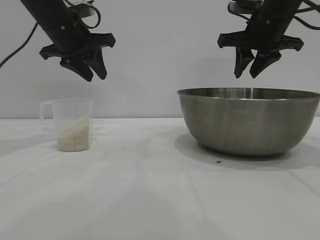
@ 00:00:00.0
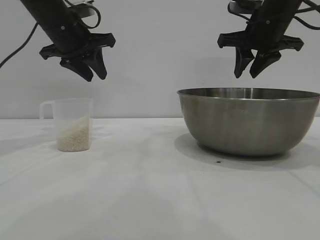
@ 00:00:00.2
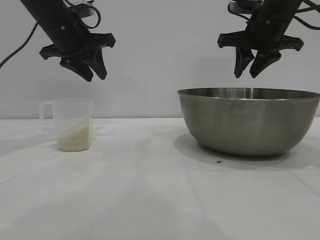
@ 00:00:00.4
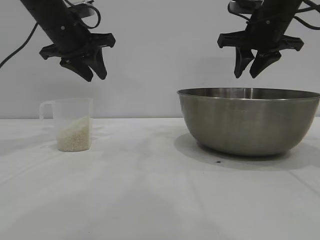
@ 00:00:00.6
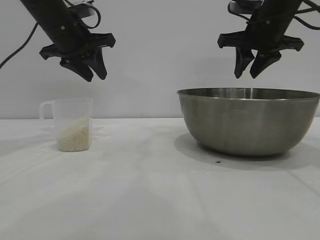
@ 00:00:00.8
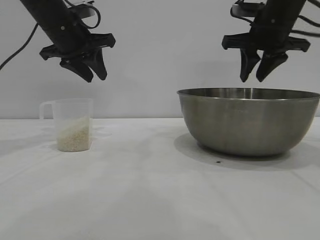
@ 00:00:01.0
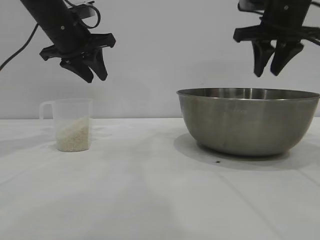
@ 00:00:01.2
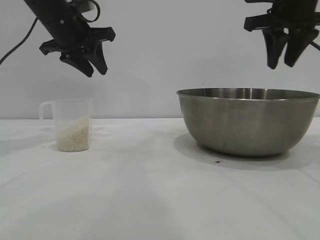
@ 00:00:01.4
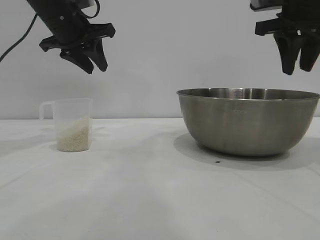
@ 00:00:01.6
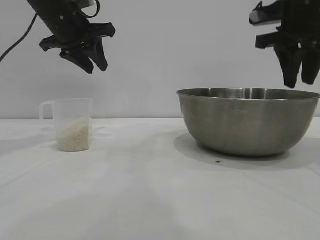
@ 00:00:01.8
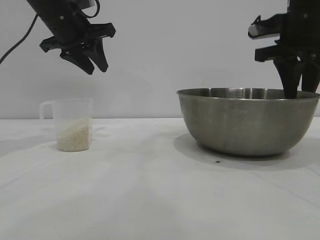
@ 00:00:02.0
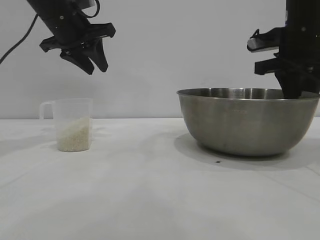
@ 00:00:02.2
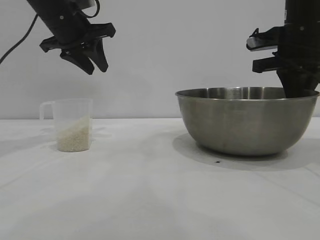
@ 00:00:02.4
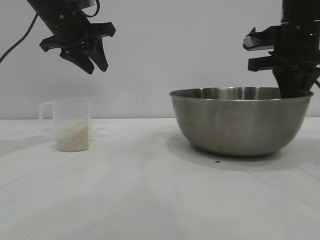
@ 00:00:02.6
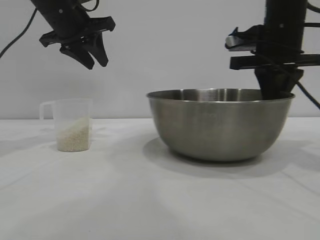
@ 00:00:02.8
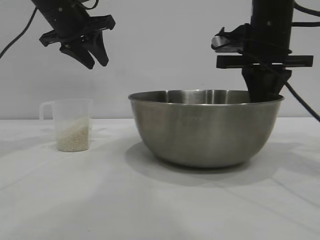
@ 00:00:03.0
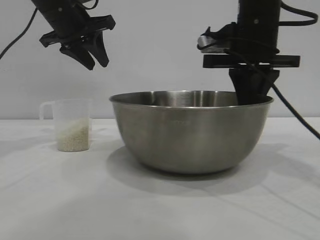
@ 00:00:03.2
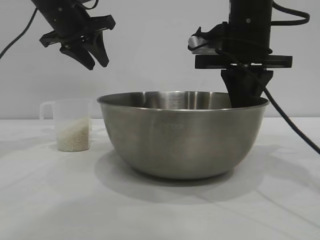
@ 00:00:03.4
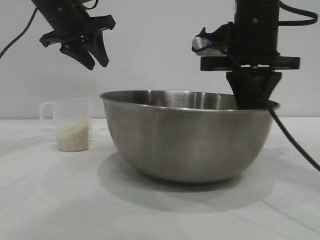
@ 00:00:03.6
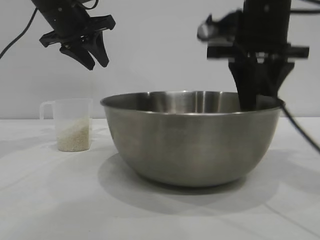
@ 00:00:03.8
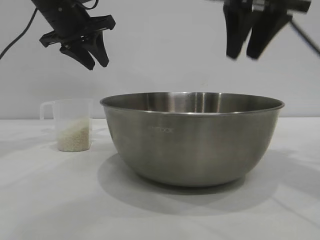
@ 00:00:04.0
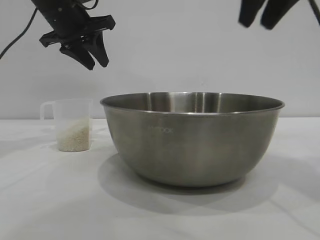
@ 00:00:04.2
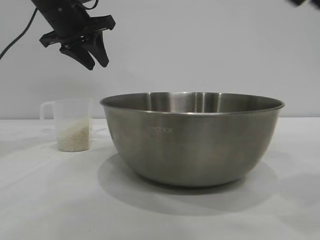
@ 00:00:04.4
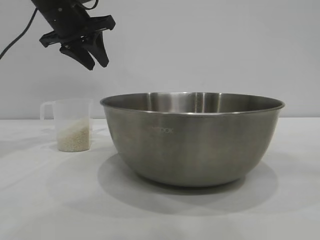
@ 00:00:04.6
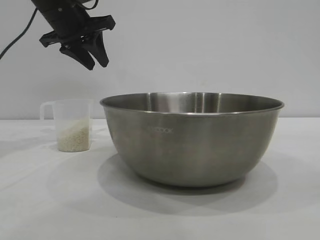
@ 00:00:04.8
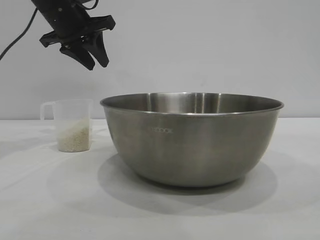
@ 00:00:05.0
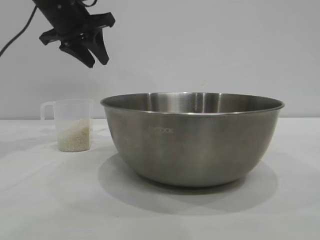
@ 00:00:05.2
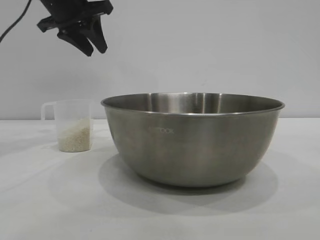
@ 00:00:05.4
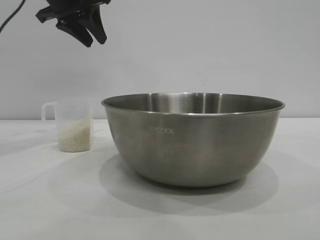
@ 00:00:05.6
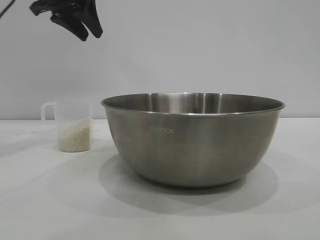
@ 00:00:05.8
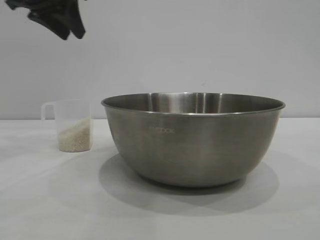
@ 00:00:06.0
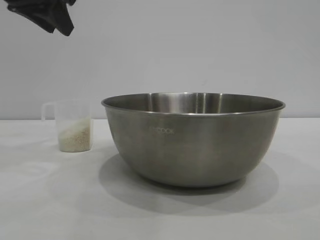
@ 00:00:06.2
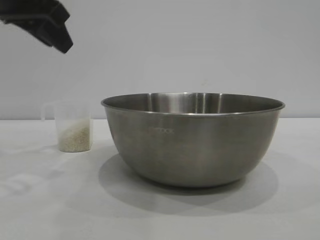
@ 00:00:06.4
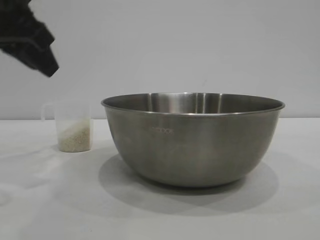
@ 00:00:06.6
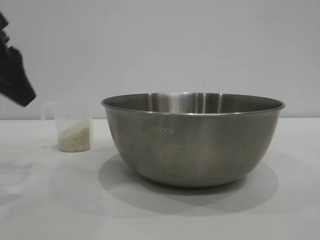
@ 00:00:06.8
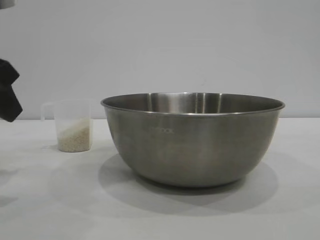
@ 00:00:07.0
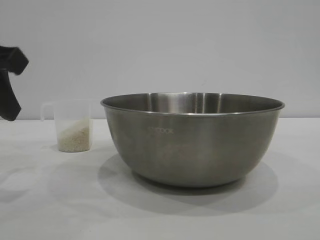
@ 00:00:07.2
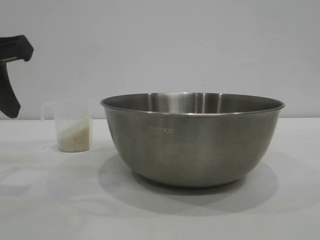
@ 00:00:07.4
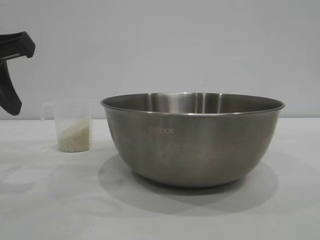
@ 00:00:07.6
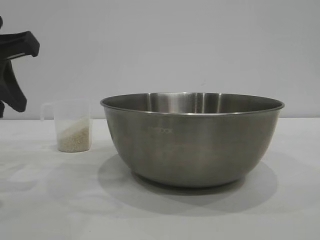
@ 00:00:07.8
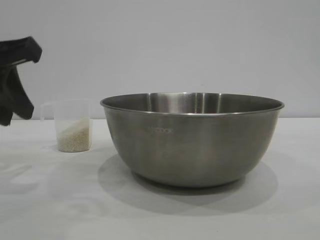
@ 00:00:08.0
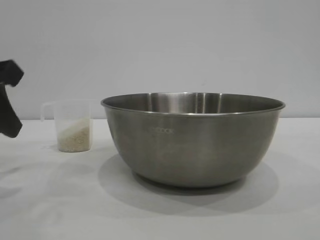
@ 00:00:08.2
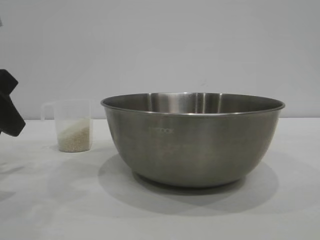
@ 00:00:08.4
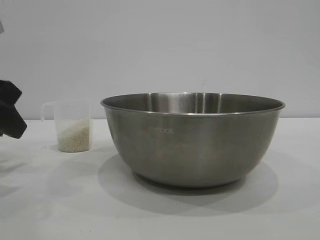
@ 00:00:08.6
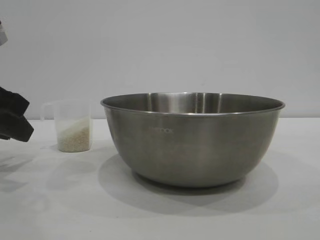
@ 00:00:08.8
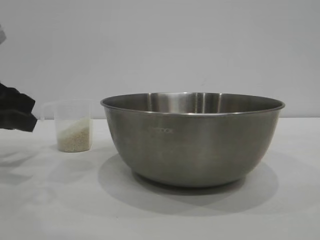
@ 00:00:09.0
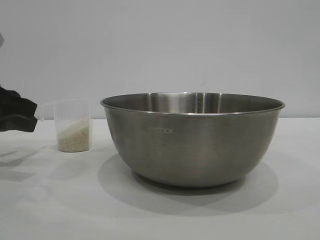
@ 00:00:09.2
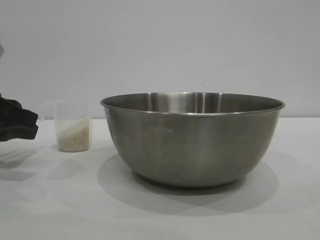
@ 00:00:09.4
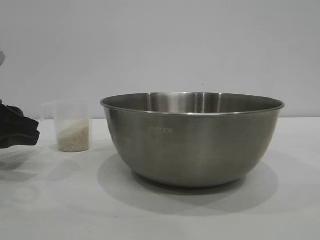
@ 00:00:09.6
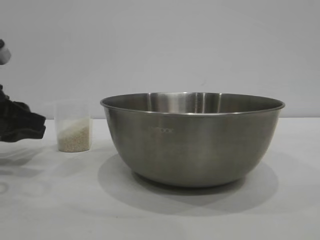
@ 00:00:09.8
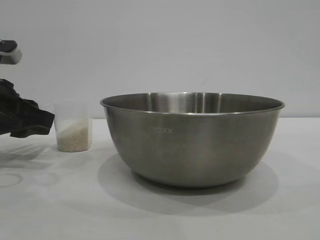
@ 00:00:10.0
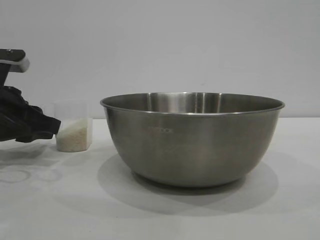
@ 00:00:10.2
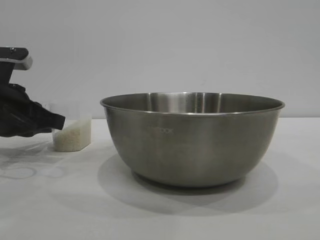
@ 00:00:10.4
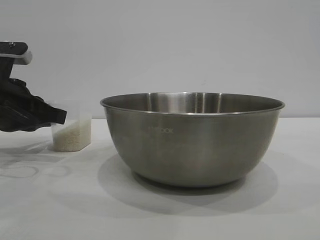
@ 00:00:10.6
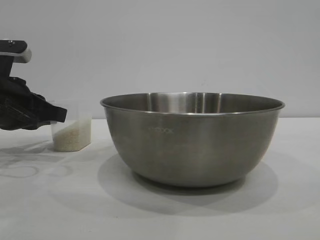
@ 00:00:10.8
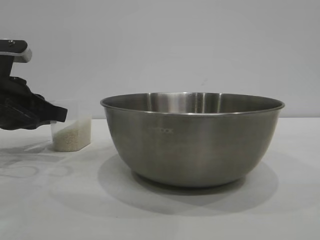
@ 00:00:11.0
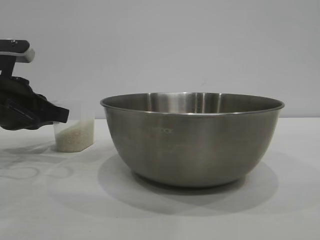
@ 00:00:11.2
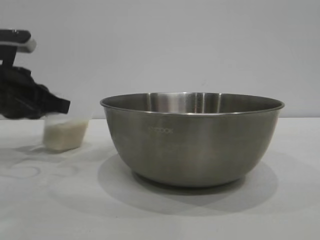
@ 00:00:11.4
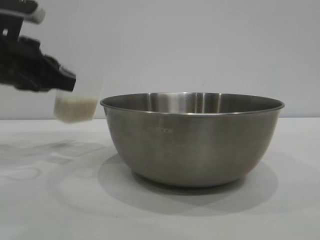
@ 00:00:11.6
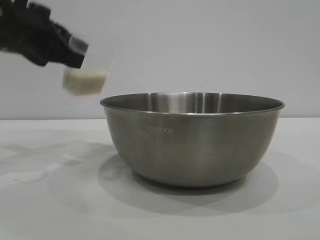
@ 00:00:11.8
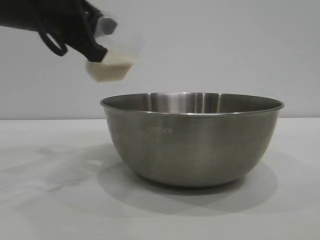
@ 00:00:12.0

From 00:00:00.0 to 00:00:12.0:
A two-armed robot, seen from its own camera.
Task of the whole recording: the right gripper grasp the rice container and place it in the center of the table, the left gripper grasp the rice scoop and pour the rice into the rice container.
Step, from 00:00:00.0 to 00:00:03.8: Move the bowl to the center of view with the right gripper.
Step, from 00:00:04.0 to 00:00:11.4: Pick up the cup with rice in it with the left gripper.

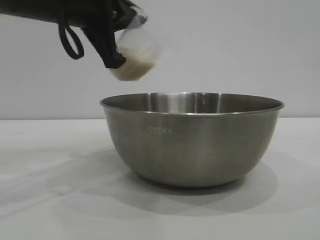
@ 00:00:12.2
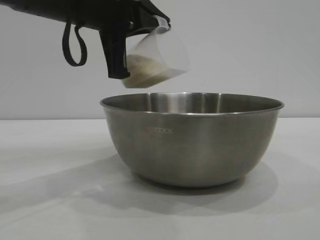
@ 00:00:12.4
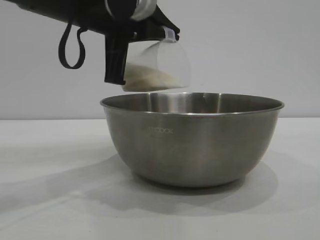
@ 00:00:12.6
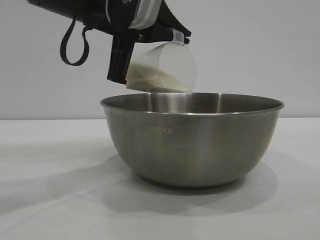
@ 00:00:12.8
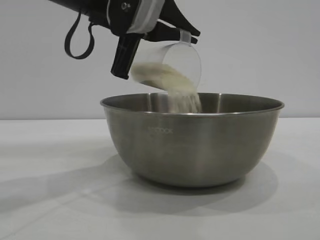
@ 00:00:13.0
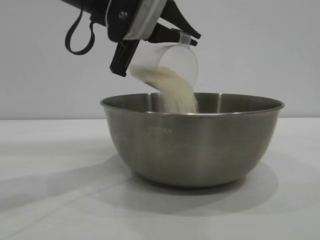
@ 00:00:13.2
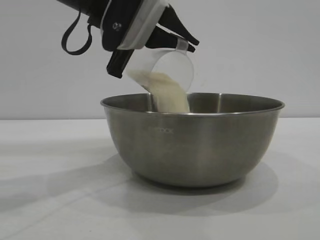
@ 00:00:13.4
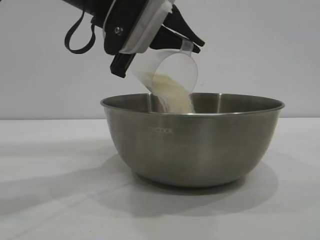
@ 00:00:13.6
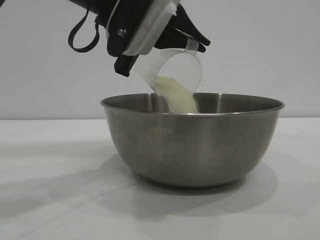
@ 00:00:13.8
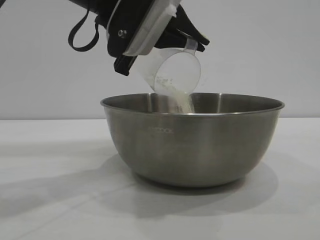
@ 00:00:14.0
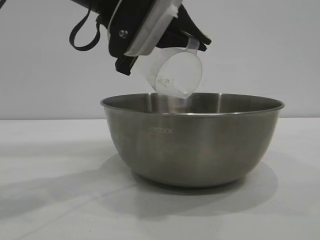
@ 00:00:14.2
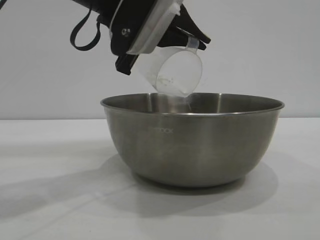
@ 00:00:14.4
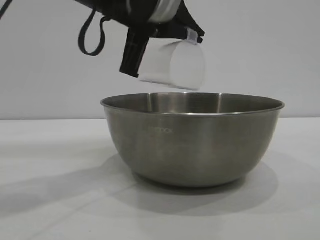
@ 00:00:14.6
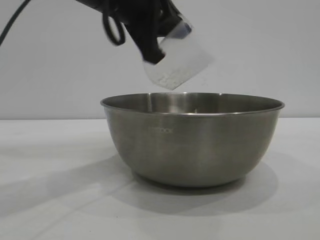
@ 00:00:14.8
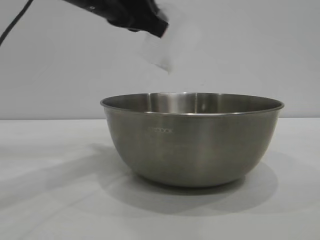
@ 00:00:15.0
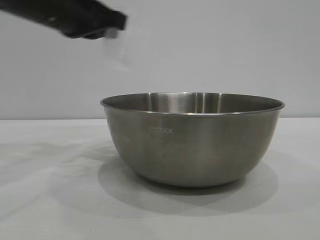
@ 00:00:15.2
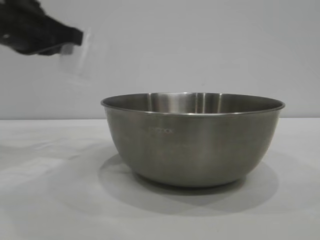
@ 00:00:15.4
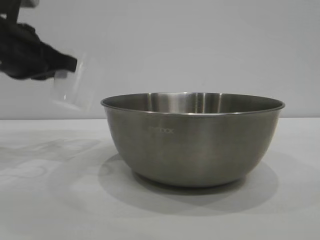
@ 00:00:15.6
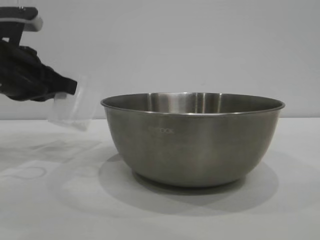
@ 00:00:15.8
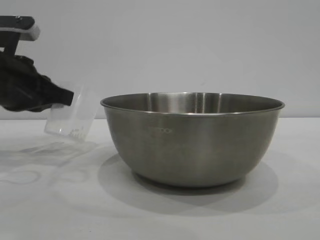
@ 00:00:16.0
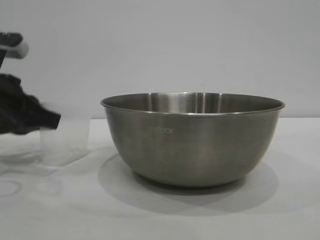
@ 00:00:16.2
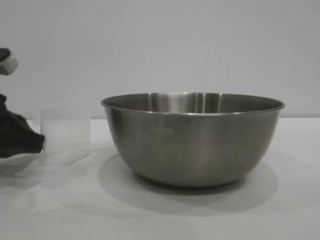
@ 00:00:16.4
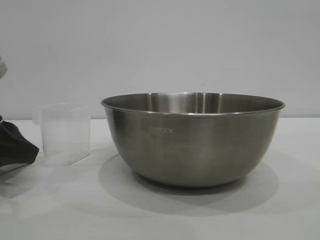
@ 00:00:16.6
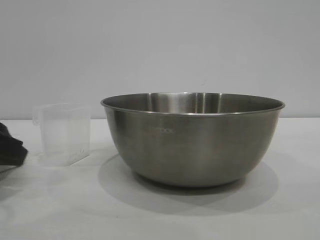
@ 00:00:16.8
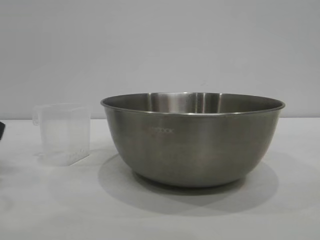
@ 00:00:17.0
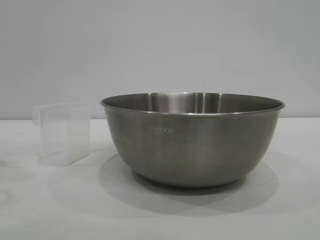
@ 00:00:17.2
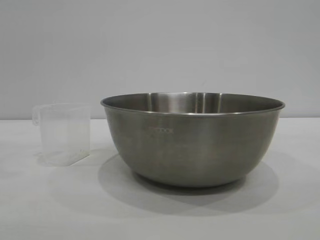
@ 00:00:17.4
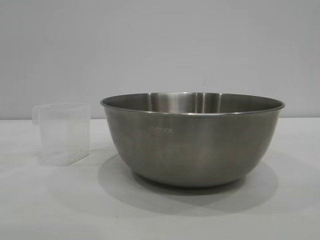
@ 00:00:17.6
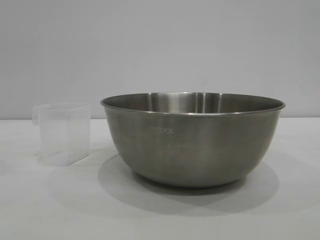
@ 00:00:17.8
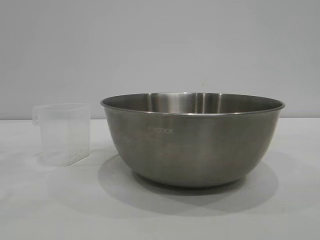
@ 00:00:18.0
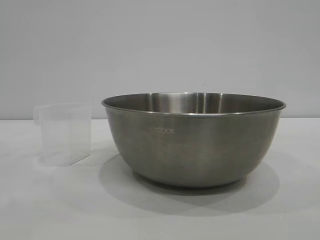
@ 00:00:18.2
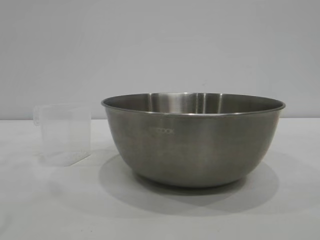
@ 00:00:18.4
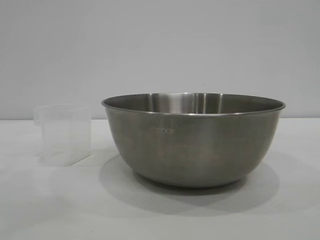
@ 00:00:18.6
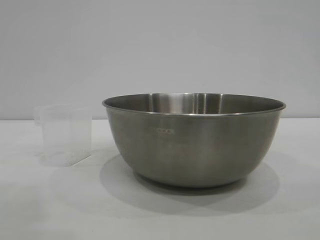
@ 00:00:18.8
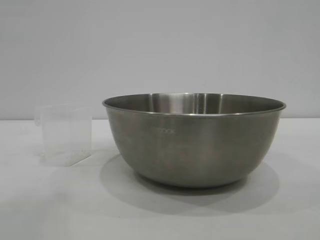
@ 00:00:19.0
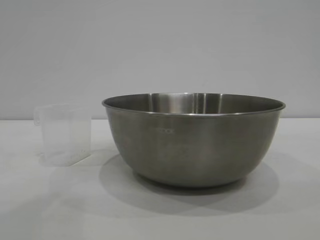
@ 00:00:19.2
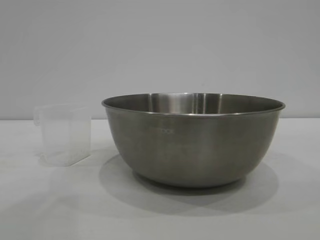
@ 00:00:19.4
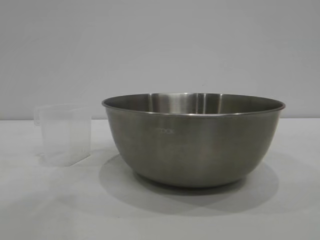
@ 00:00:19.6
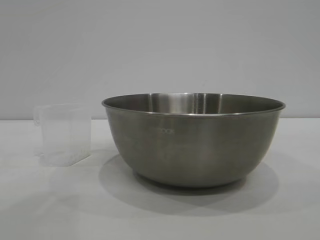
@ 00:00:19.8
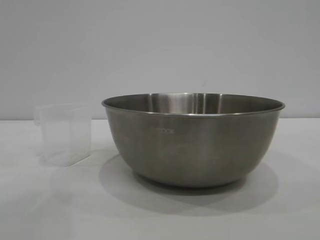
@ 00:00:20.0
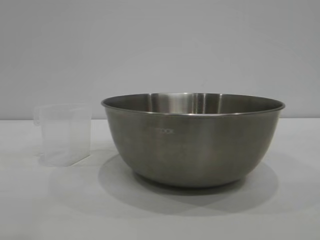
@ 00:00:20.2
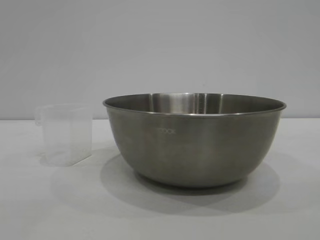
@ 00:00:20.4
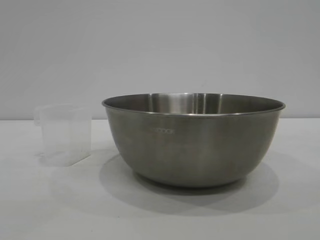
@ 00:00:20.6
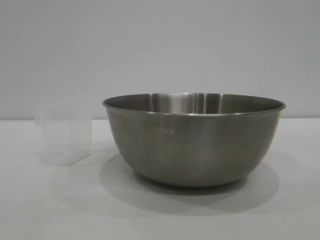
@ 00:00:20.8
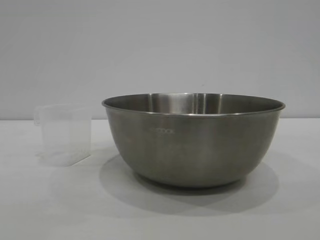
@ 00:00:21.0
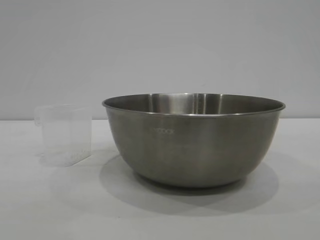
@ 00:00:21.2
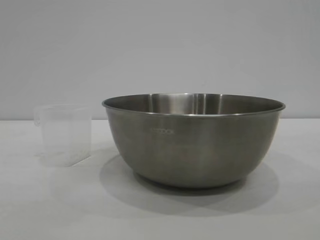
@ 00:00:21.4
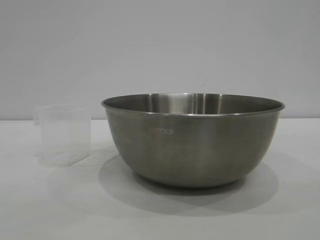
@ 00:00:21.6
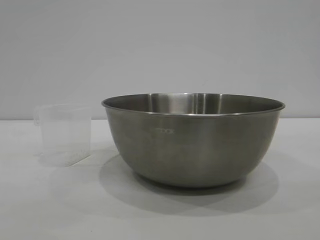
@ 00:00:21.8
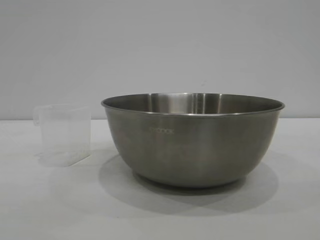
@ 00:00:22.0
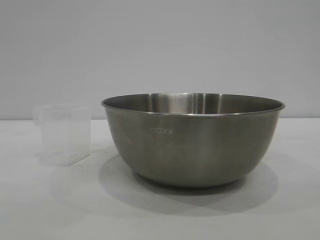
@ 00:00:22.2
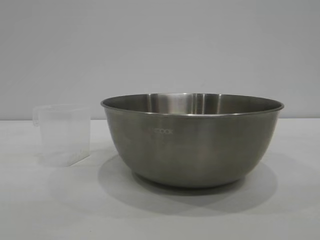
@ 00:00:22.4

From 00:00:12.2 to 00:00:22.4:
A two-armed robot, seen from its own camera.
Task of the whole recording: the right gripper grasp the rice container and place it in the center of the table, the left gripper grasp the rice scoop and pour the rice into the rice container.
Step, from 00:00:12.2 to 00:00:14.2: Pour the rice from the cup into the bowl with the left gripper.
Step, from 00:00:14.4 to 00:00:16.6: Place the cup on the table with the left gripper.
